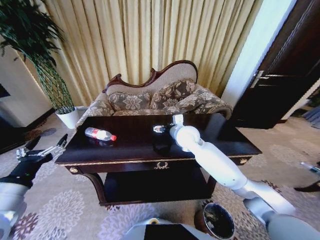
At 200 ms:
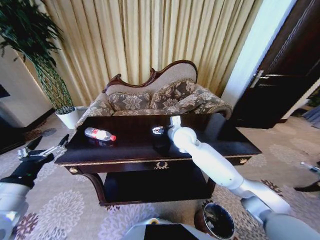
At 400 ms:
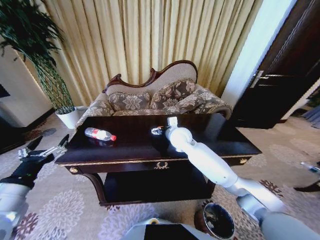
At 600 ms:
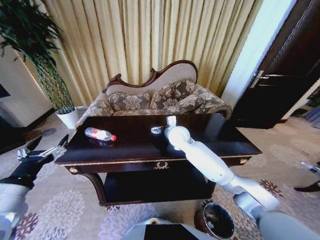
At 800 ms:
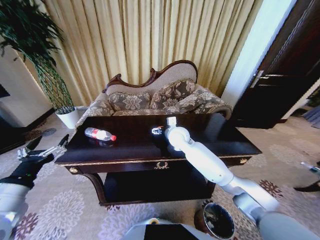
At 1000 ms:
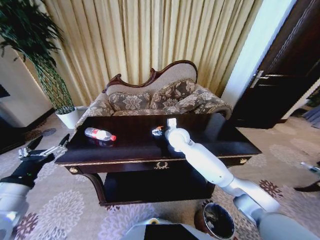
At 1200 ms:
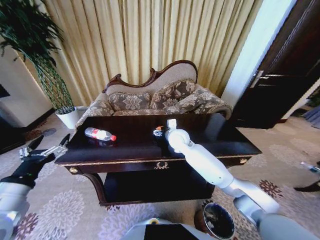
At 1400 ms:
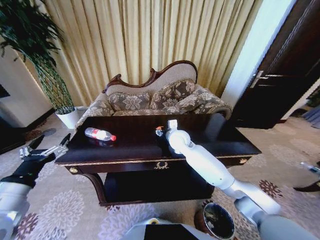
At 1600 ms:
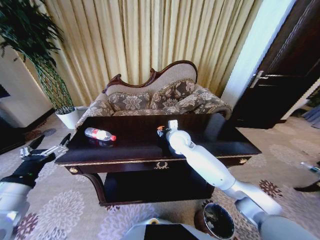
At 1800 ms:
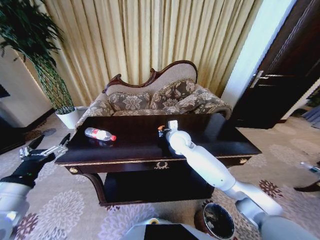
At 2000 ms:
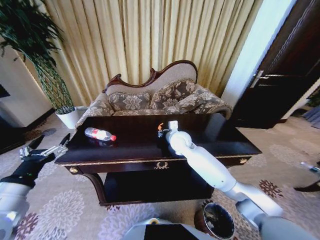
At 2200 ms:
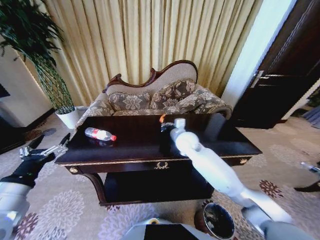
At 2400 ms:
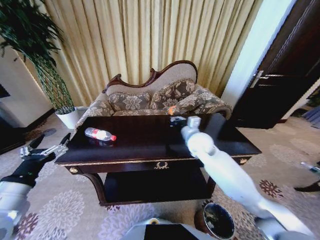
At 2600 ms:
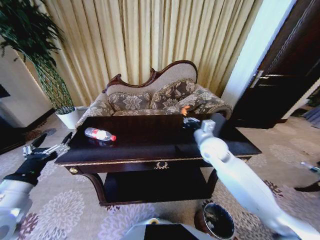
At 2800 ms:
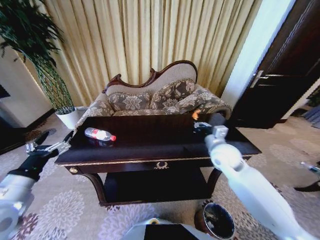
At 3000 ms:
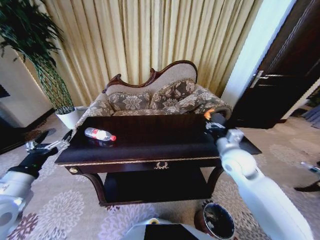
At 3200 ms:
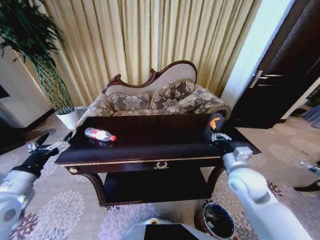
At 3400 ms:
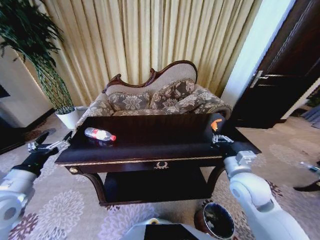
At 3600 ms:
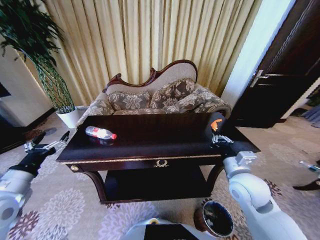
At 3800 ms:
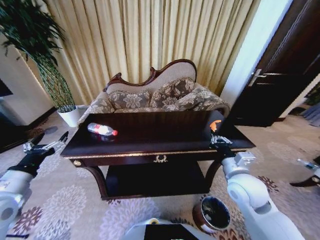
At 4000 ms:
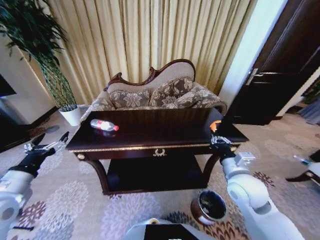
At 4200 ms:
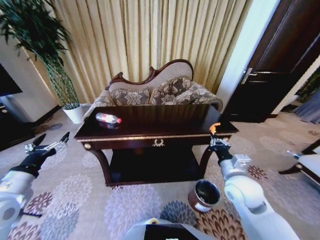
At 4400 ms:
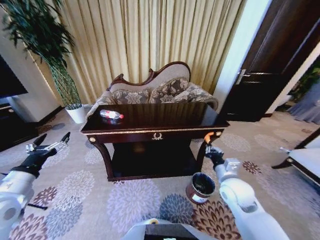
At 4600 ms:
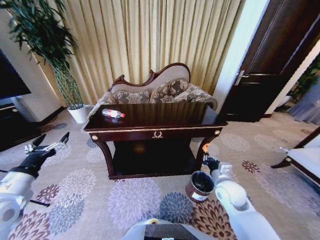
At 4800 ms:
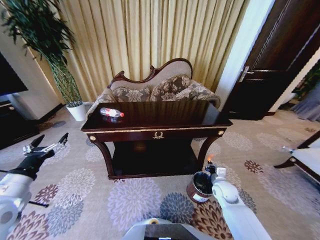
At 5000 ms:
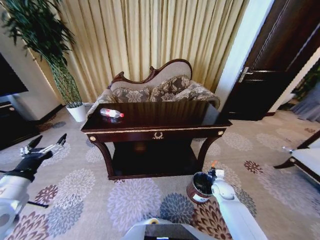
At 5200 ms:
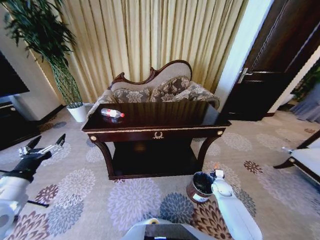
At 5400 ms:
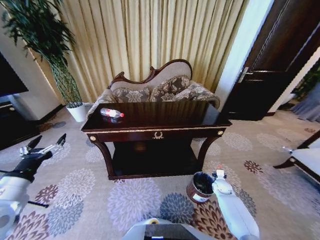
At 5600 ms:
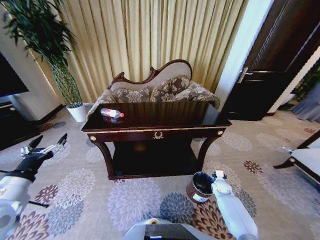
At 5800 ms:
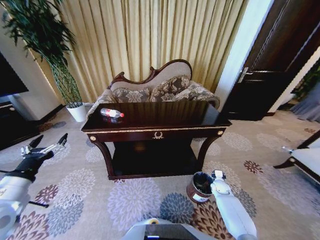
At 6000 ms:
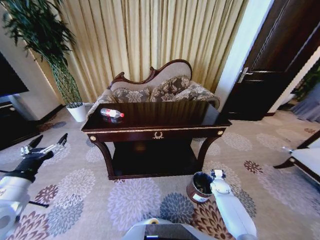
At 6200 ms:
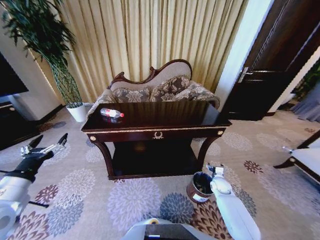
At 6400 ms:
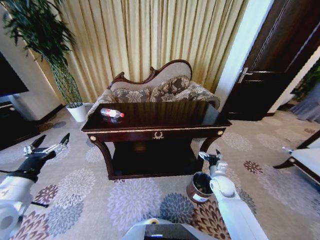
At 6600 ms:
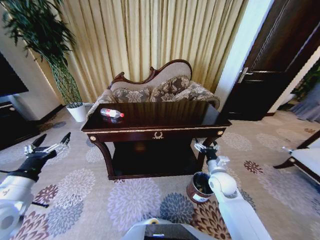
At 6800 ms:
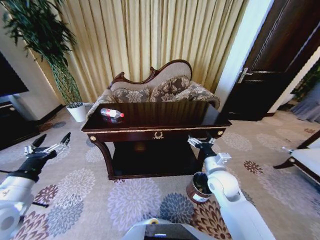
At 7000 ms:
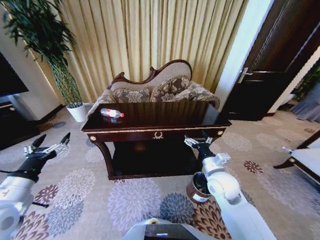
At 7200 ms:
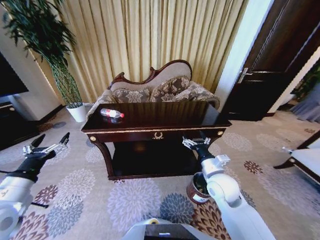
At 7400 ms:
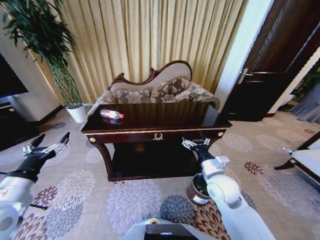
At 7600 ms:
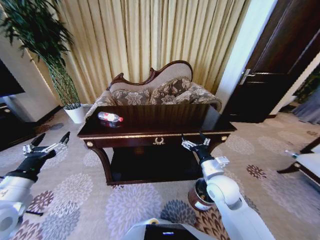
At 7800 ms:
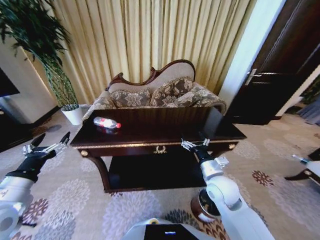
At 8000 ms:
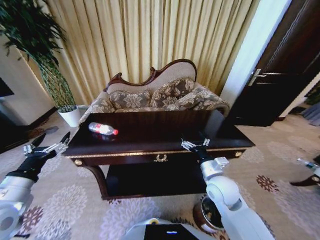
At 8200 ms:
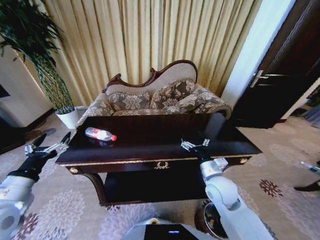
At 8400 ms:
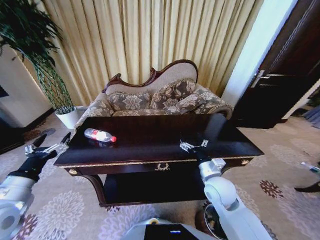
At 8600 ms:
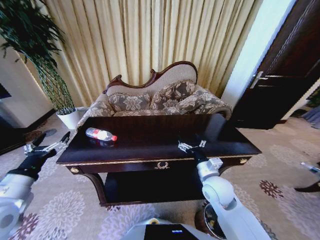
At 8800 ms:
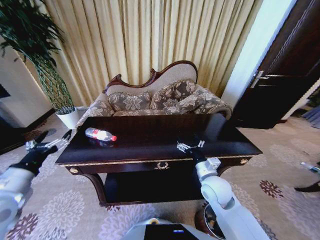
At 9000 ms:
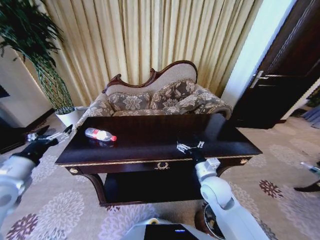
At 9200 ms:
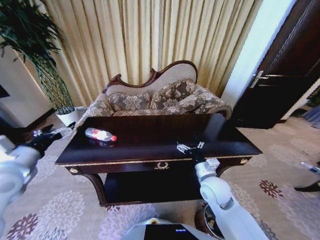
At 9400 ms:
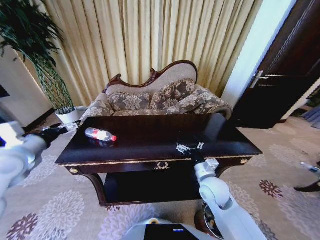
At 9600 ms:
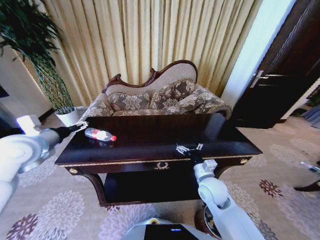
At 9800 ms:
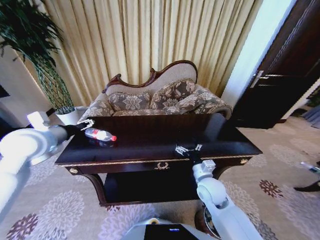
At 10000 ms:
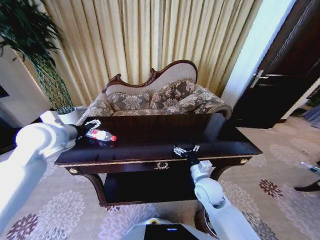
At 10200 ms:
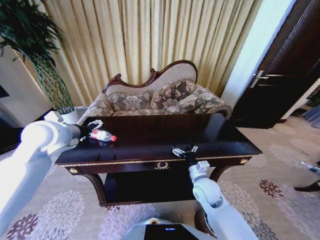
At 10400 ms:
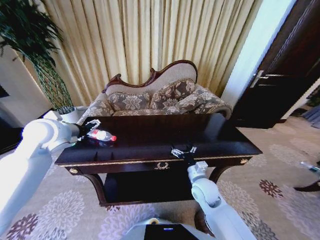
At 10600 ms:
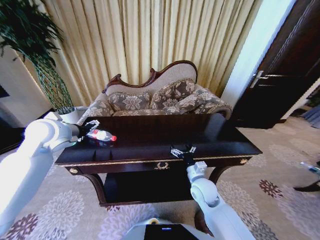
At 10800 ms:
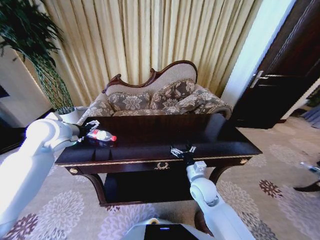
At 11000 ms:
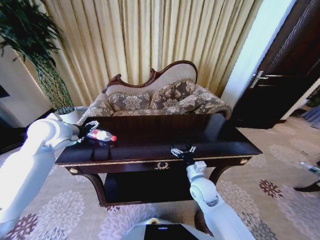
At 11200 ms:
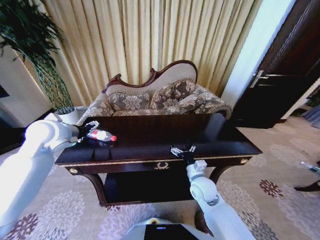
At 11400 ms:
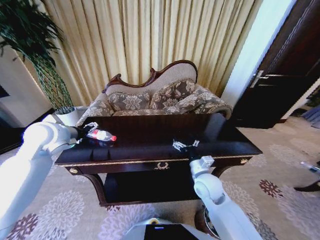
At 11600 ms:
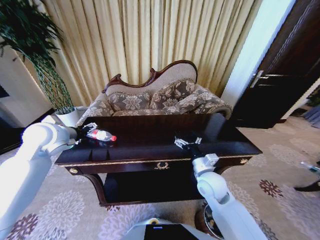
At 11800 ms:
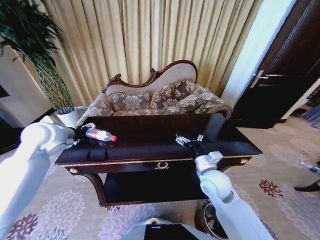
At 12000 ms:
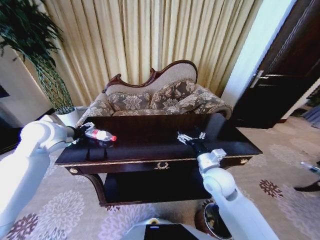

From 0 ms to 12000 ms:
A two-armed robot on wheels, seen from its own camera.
Task of the whole recording: Move to the front of the table and place the trash on the table into the trash bin.
From 0 ms to 1600 ms: The right gripper shifts by roughly 5 cm, and closes up.
From 1600 ms to 3000 ms: The right gripper heads to the right and backward, covering about 25 cm, and closes up.
From 3000 ms to 4400 ms: The right gripper is displaced downward and backward by about 10 cm.
From 4400 ms to 6000 ms: The right gripper is displaced downward and to the right by approximately 25 cm, and opens its fingers.
From 6000 ms to 7600 ms: The right gripper travels upward and to the left by about 30 cm, and opens its fingers.
From 7600 ms to 9000 ms: The left gripper moves some 5 cm.
From 9000 ms to 10400 ms: The right gripper ends up about 5 cm from where it was. The left gripper shifts some 15 cm forward and to the right.
From 10400 ms to 12000 ms: The right gripper goes some 10 cm upward.

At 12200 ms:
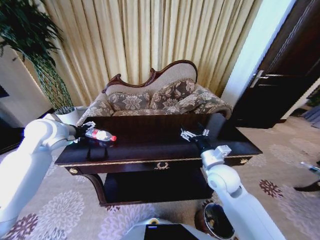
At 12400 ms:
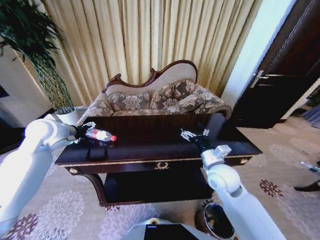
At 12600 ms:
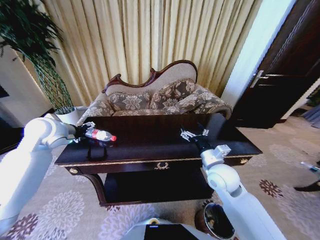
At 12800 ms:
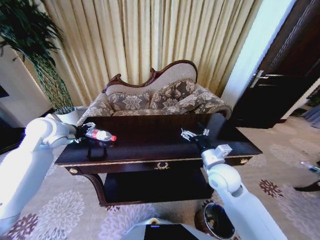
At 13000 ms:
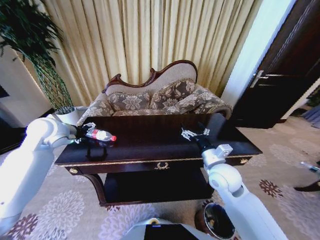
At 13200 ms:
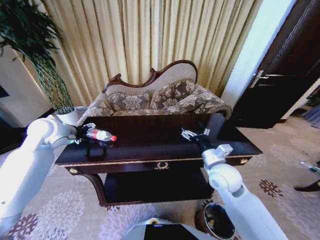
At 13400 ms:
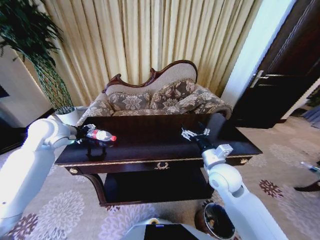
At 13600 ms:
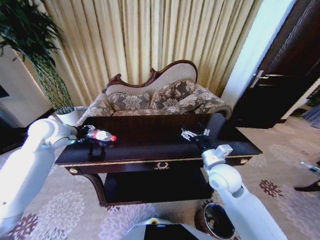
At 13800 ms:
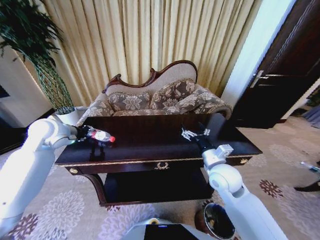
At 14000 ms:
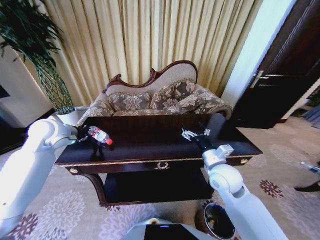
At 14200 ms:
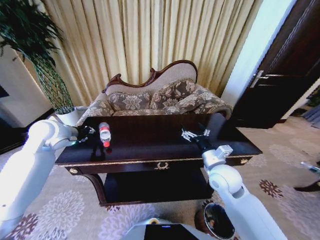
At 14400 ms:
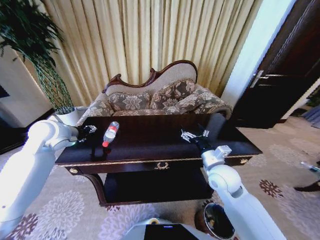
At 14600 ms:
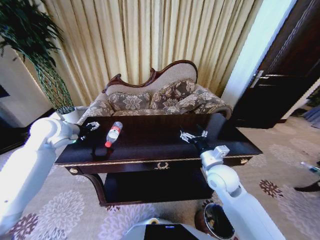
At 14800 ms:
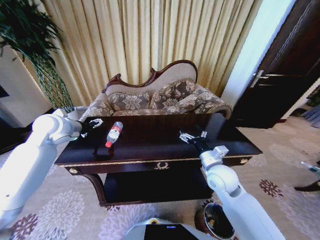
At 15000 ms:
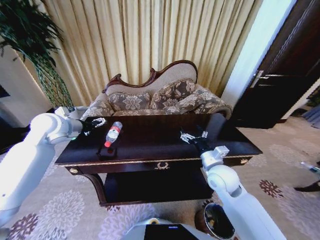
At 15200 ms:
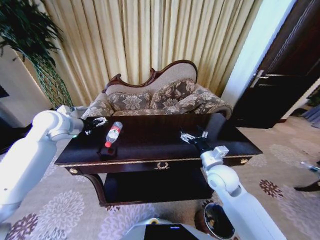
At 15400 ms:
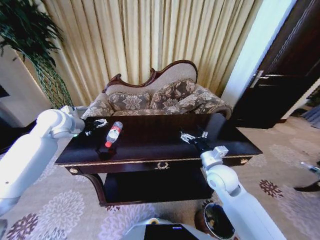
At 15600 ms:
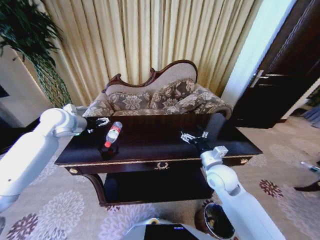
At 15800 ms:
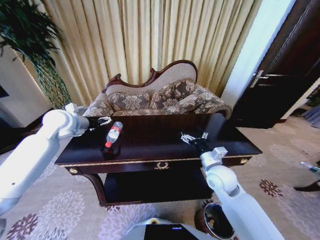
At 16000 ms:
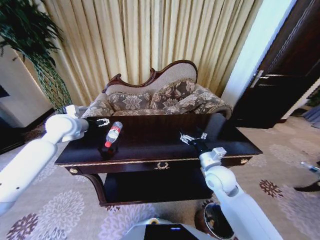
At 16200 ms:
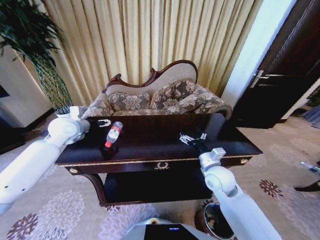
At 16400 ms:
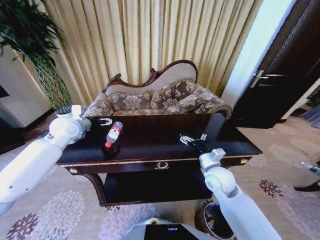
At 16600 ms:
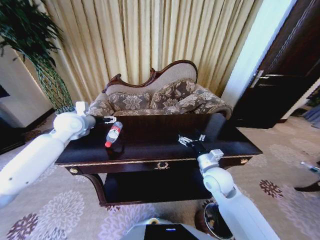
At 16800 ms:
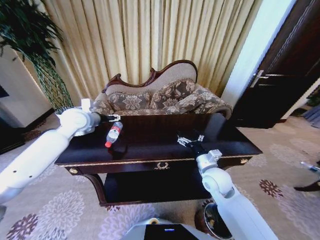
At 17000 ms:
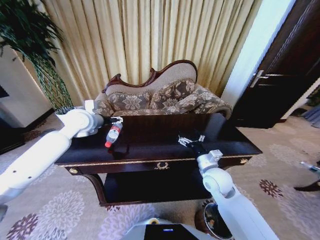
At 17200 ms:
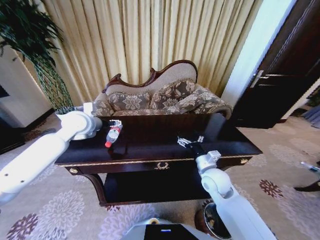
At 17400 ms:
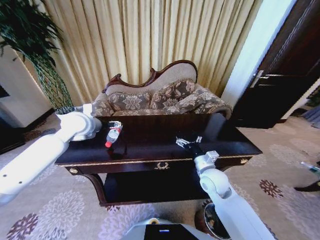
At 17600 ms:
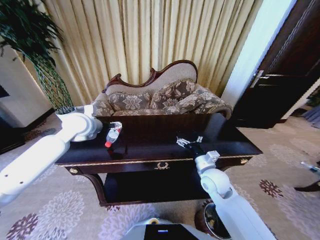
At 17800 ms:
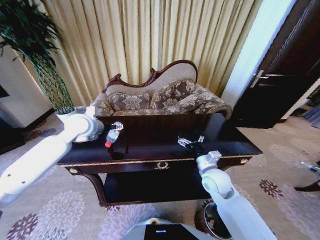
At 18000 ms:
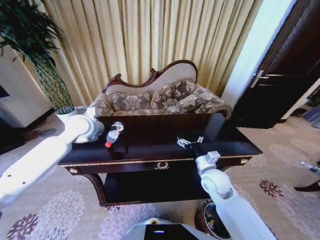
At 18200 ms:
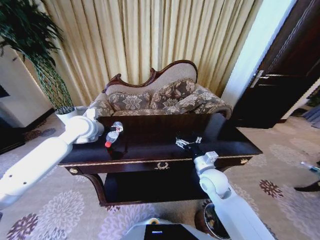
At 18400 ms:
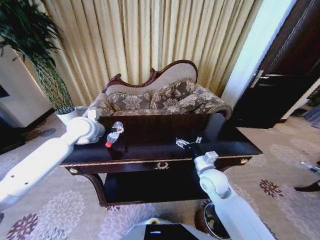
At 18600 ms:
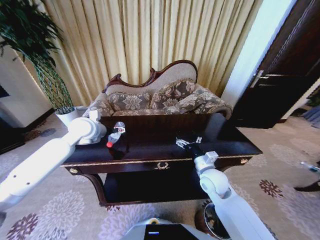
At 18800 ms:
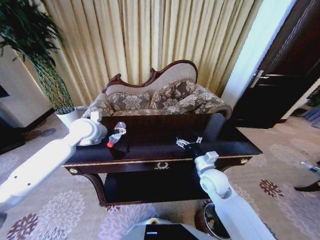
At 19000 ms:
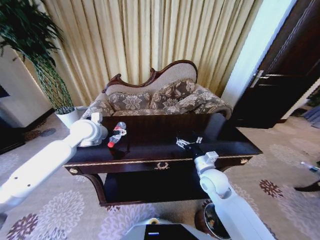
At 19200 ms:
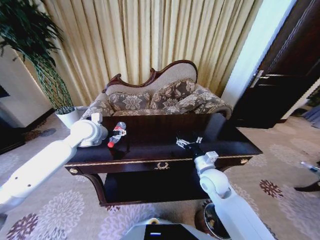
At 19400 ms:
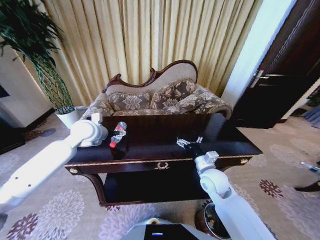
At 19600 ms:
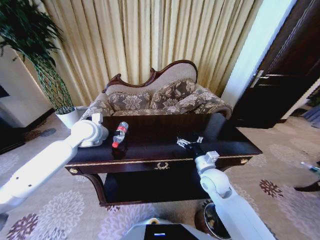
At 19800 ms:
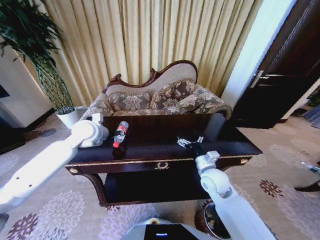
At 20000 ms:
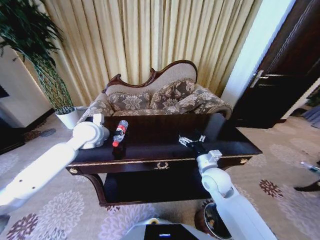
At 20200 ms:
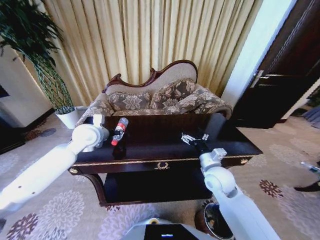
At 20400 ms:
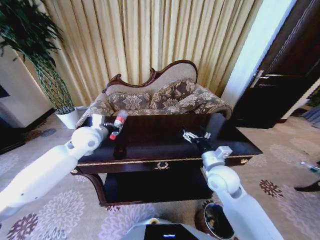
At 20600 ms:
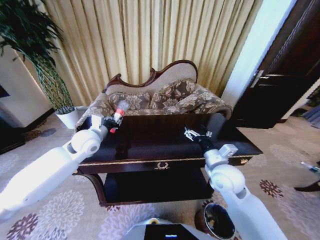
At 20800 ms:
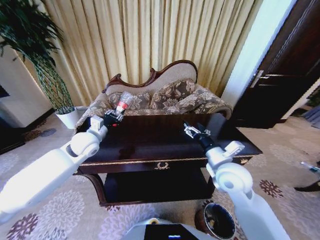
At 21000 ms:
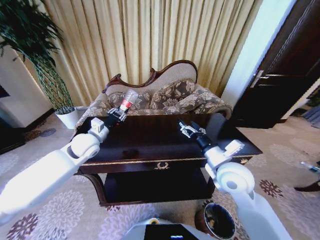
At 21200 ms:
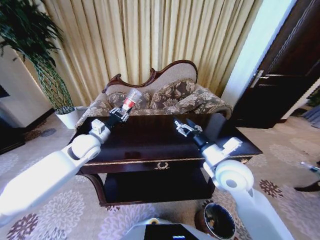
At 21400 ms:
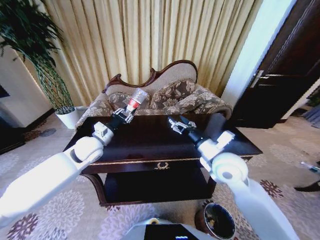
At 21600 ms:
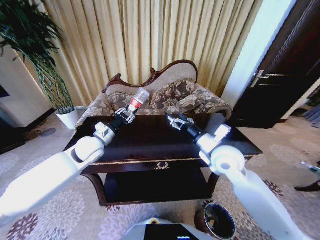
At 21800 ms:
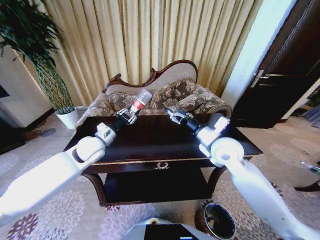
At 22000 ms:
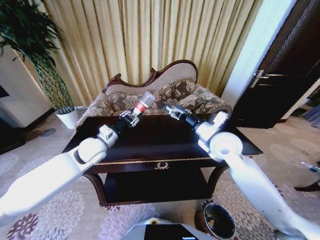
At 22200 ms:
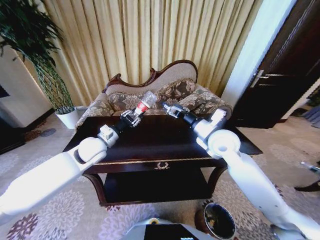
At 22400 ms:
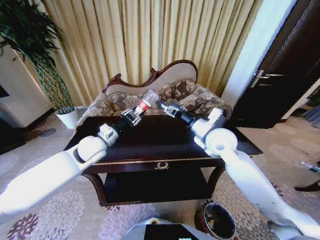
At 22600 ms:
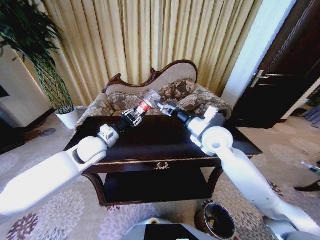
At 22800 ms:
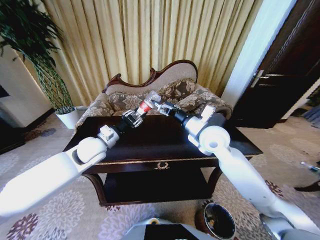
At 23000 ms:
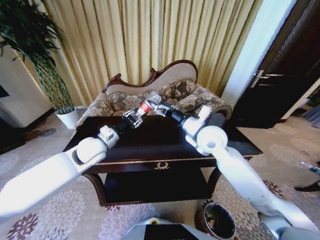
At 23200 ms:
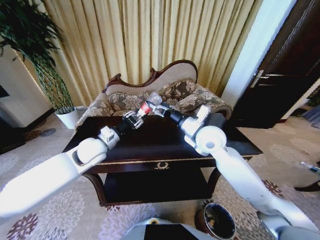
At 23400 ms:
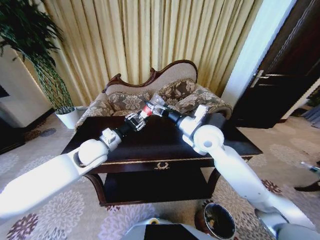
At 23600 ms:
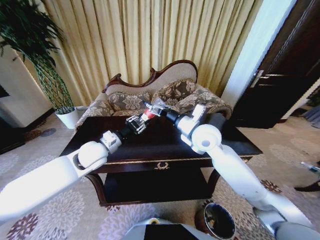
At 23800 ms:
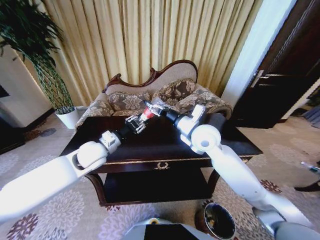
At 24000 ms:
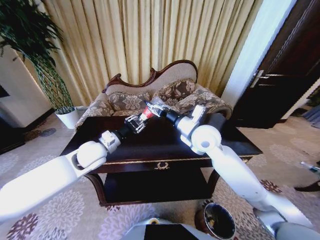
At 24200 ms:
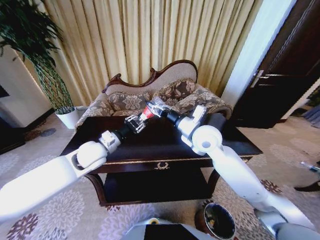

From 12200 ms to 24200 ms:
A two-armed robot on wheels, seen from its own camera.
Task of the whole recording: Move to the front of the table and place the trash on the table into the trash bin.
From 12200 ms to 13800 ms: The left gripper closes up.
From 13800 ms to 15200 ms: The left gripper opens.
From 16600 ms to 18200 ms: The grippers make only small movements.
From 18200 ms to 19800 ms: The left gripper closes up.
From 19800 ms to 21200 ms: The right gripper shifts about 10 cm upward. Meanwhile the left gripper shifts by some 5 cm.
From 21200 ms to 22600 ms: The right gripper travels forward by approximately 10 cm.
From 22600 ms to 24200 ms: The right gripper closes its fingers.
